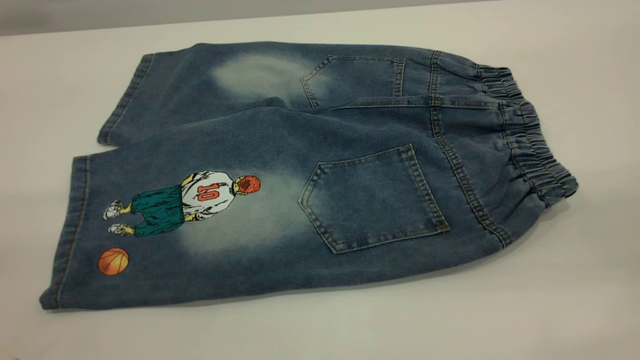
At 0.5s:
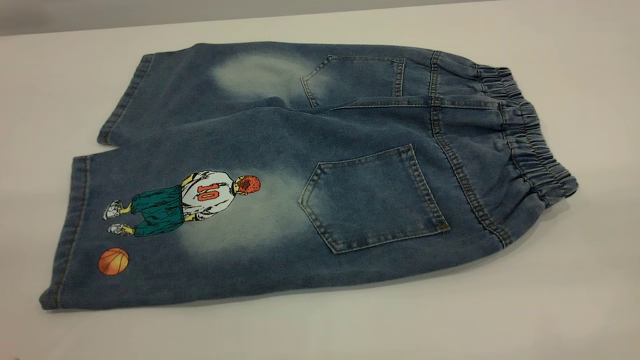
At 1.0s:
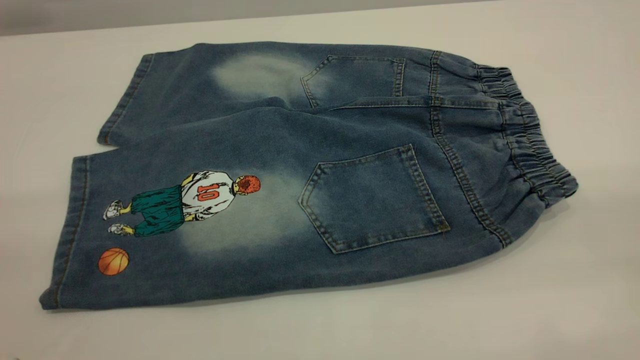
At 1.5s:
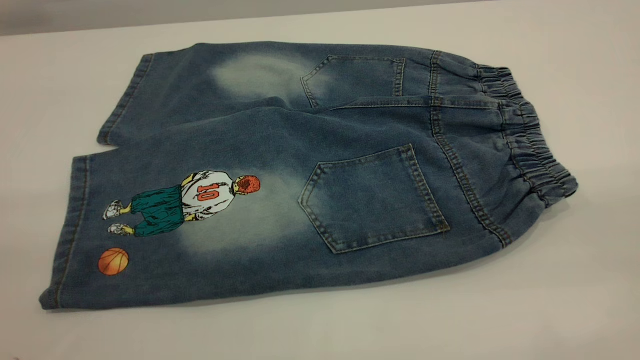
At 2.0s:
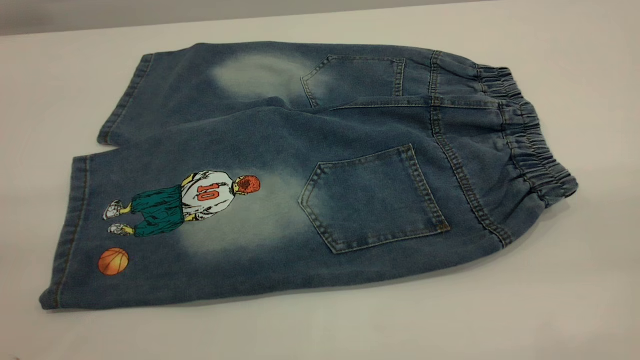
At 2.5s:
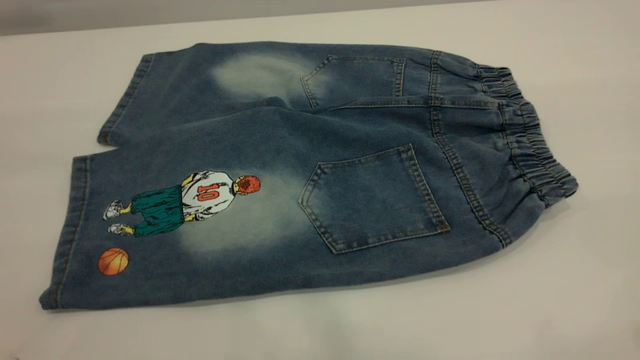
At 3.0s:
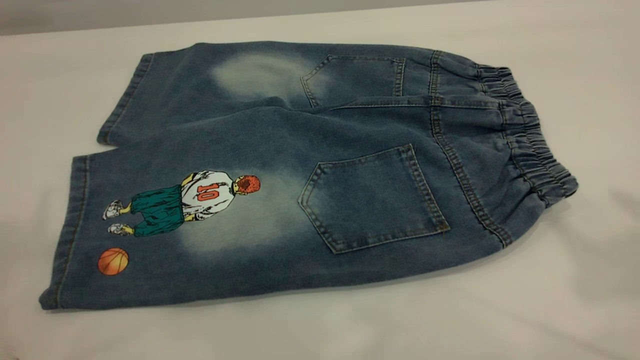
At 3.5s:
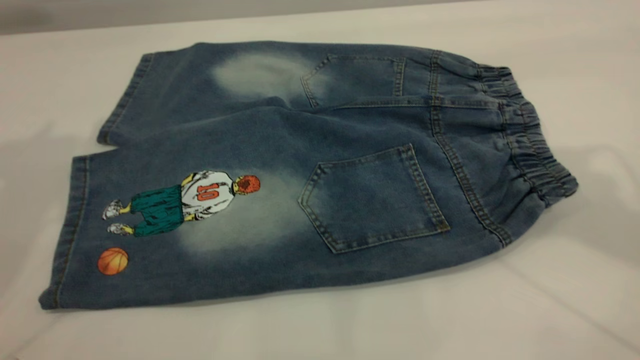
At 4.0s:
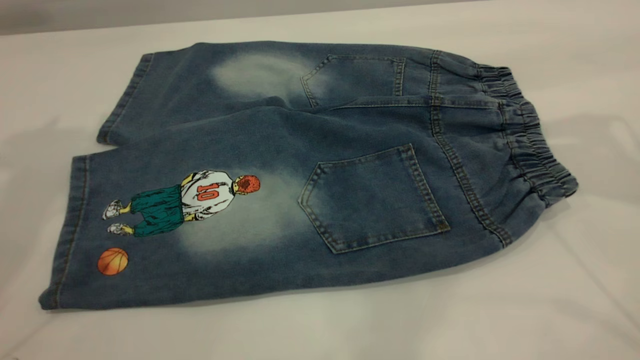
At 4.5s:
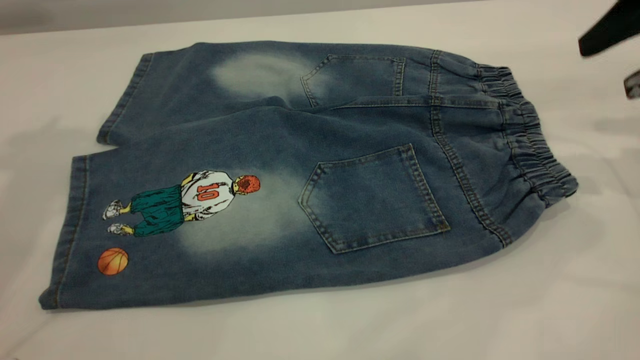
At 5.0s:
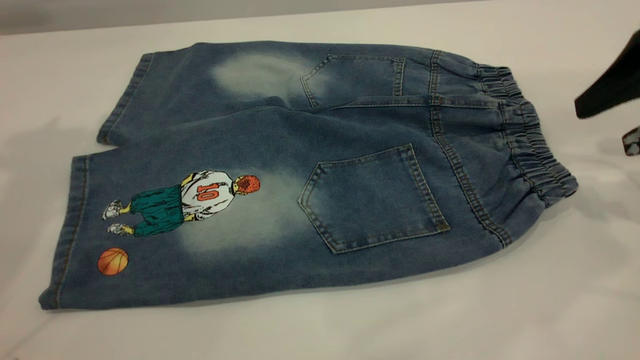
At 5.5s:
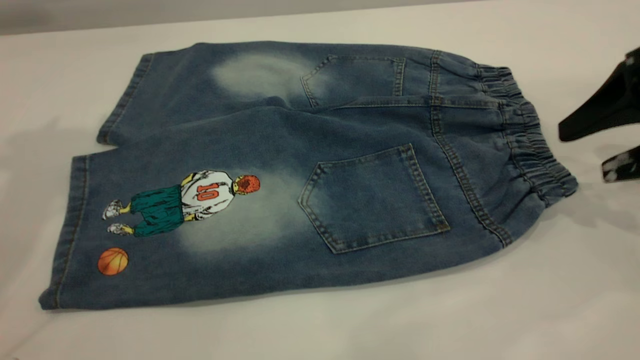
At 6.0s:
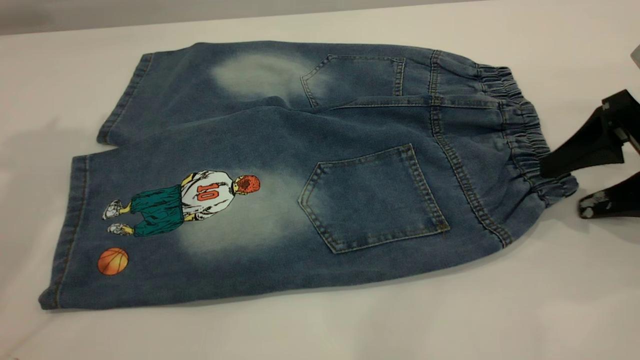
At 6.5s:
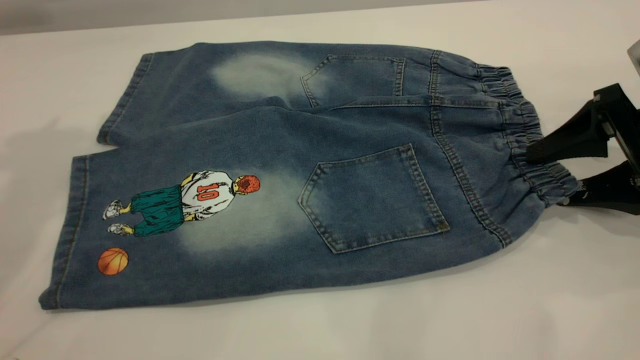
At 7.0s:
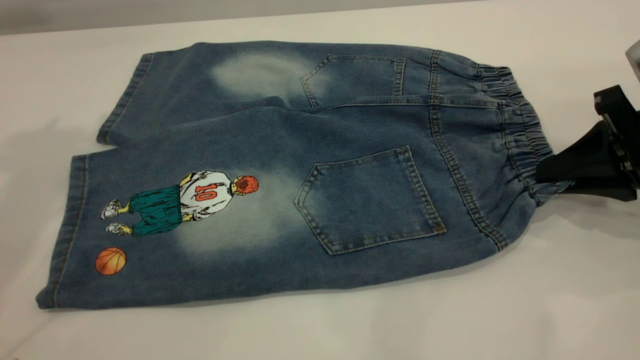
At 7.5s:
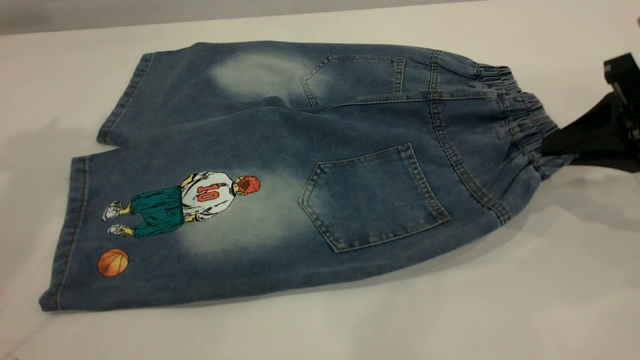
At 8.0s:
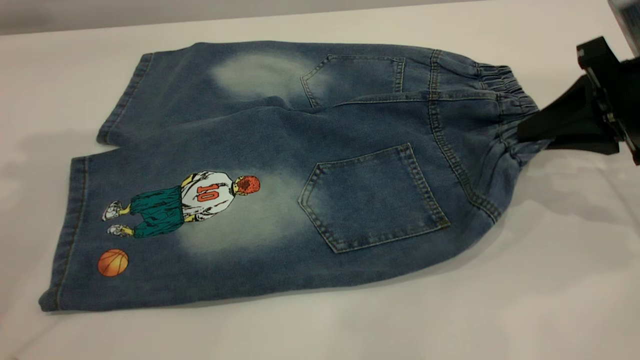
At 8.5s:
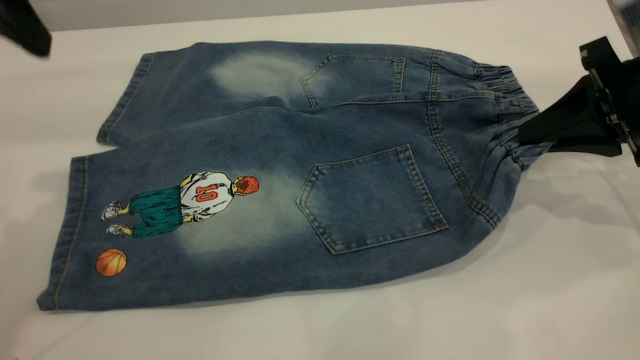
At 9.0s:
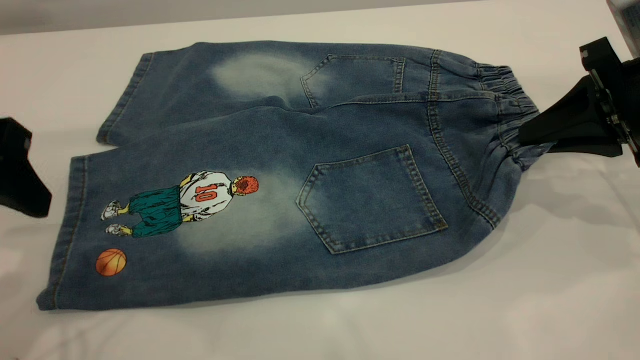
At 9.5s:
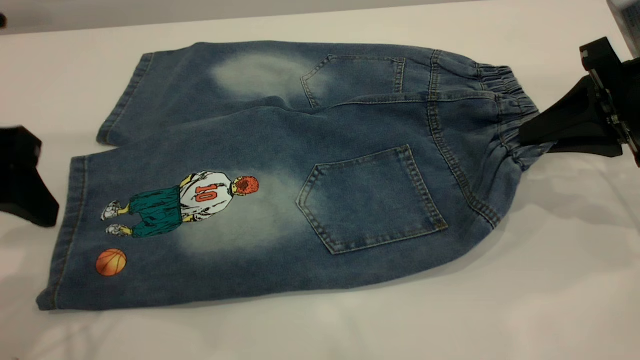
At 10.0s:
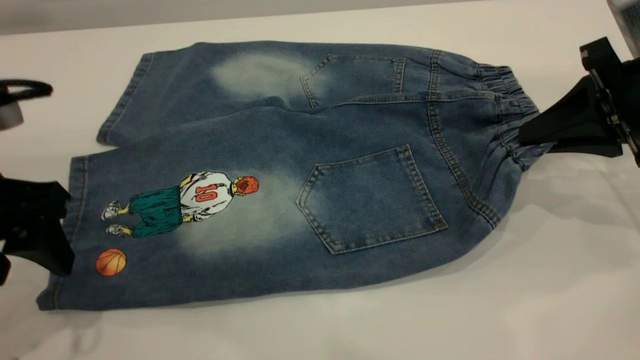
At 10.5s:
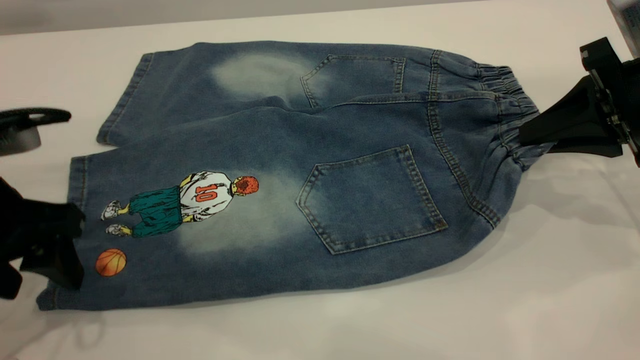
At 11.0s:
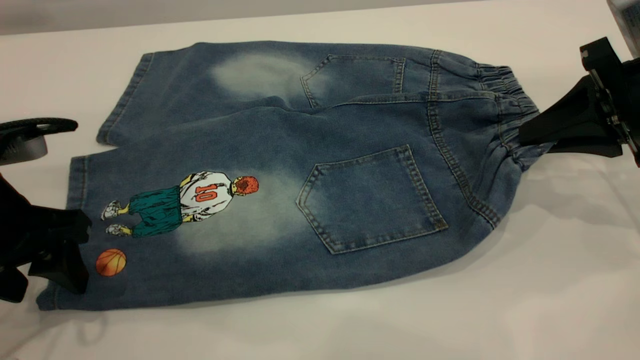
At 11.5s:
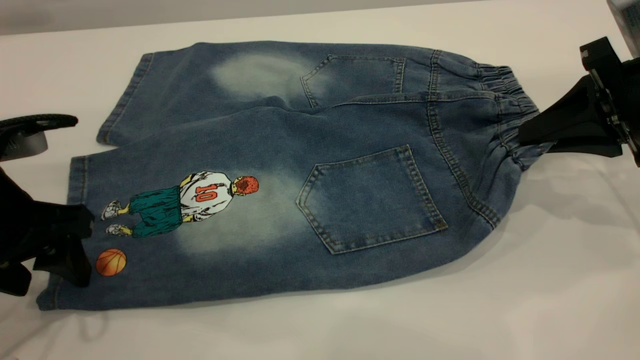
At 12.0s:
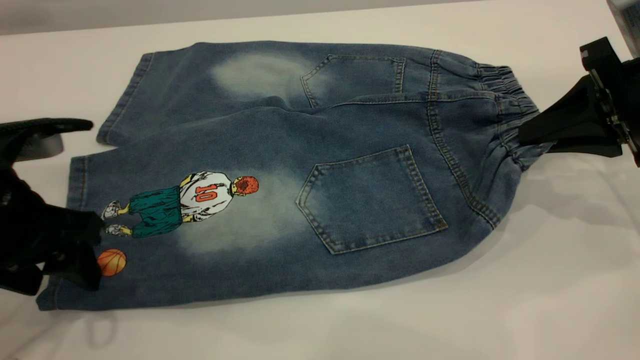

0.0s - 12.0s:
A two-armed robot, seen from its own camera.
0.0s - 2.0s: The two grippers keep their place.
4.0s - 6.0s: The right gripper is displaced downward by roughly 20 cm.
6.0s - 8.0s: The right gripper closes.
8.0s - 10.0s: The left gripper goes approximately 25 cm downward and backward.
10.0s - 12.0s: There are only small adjustments of the grippers.

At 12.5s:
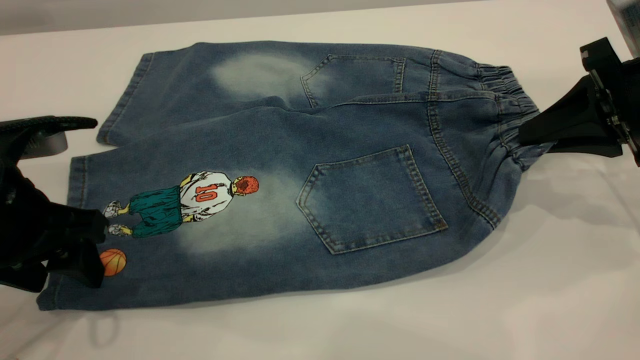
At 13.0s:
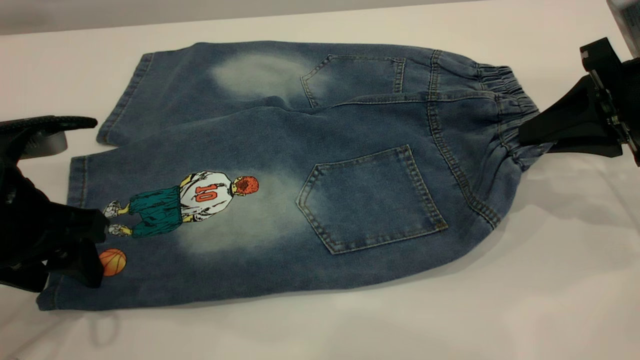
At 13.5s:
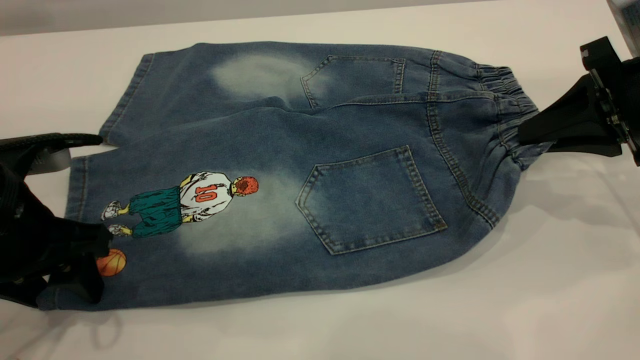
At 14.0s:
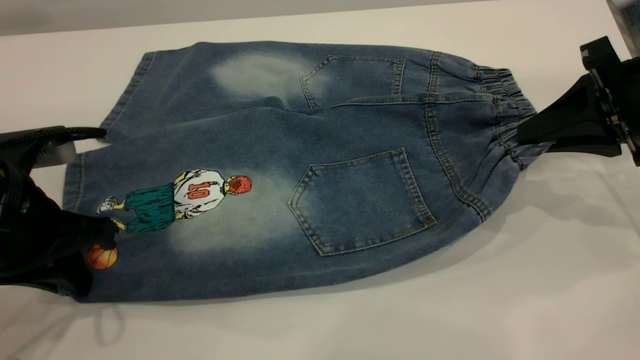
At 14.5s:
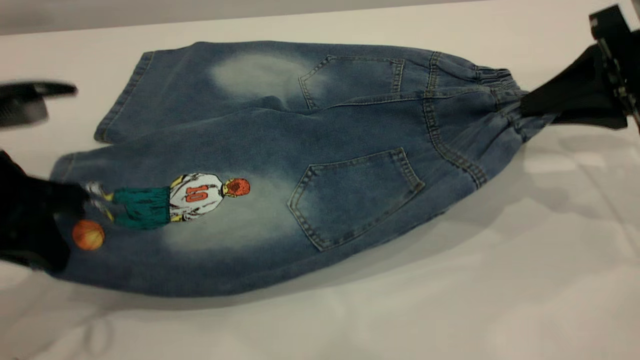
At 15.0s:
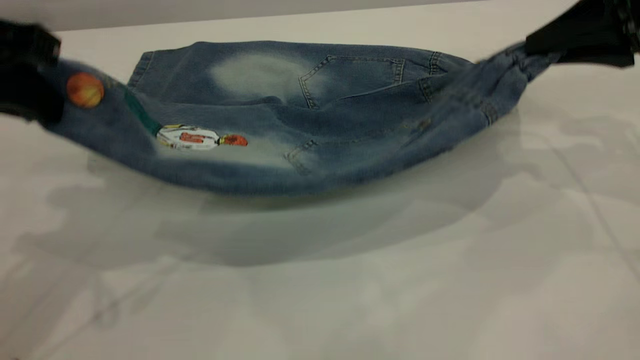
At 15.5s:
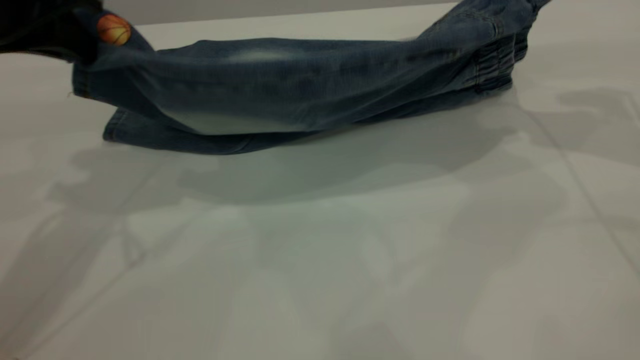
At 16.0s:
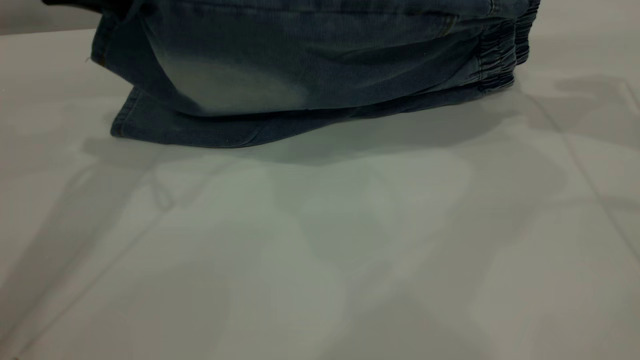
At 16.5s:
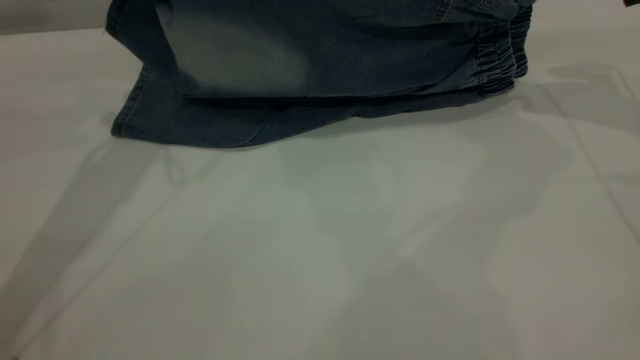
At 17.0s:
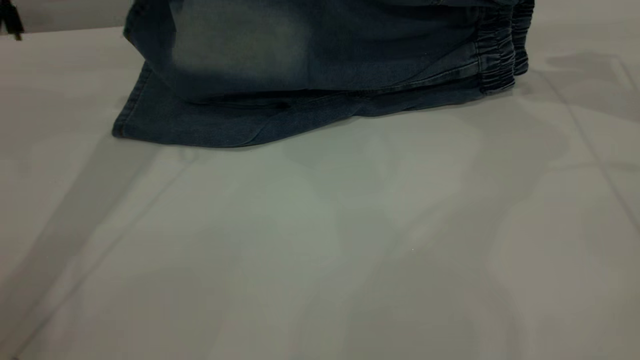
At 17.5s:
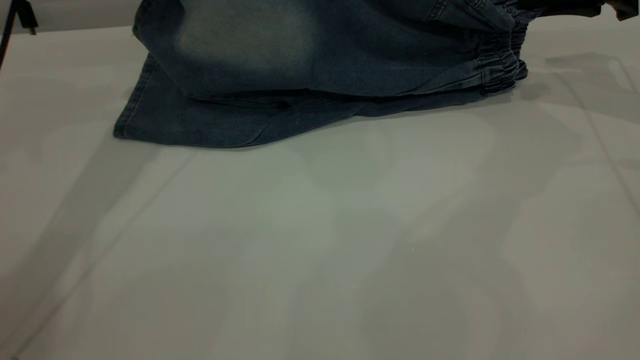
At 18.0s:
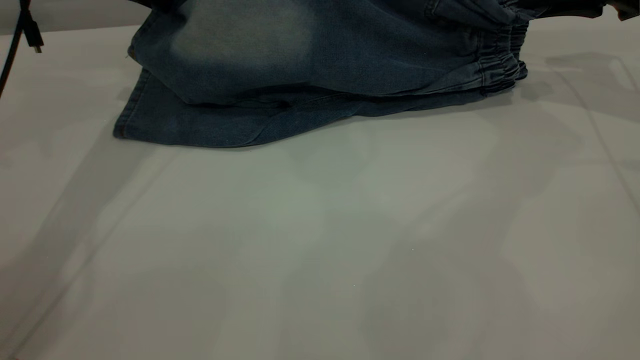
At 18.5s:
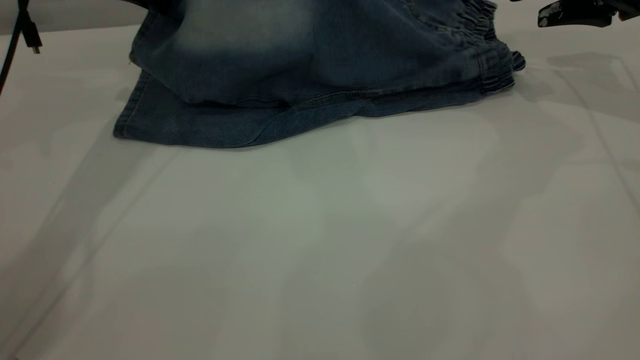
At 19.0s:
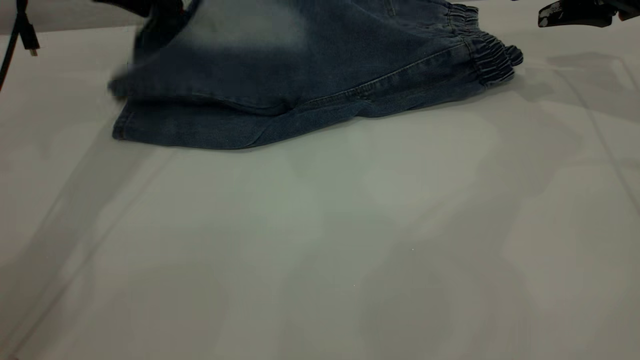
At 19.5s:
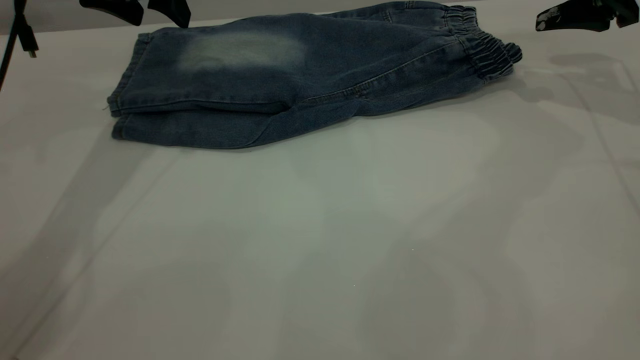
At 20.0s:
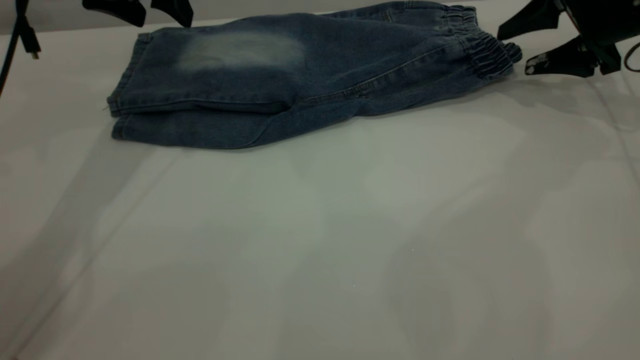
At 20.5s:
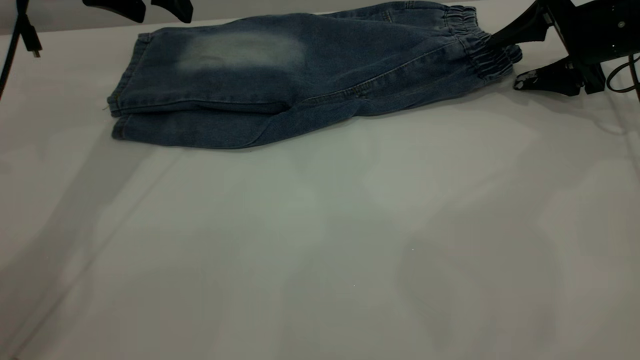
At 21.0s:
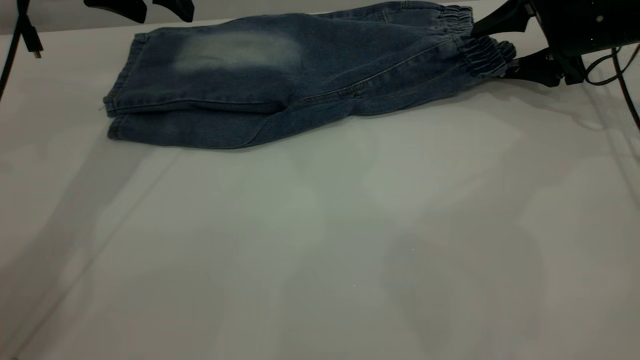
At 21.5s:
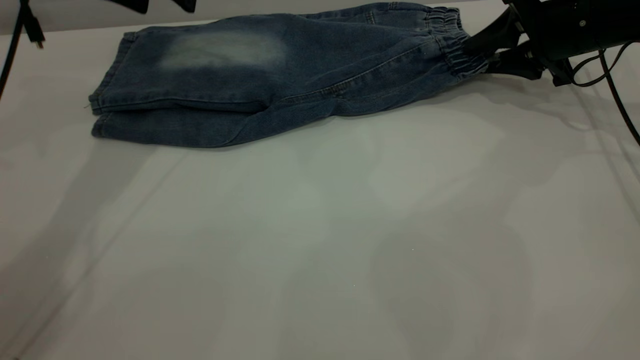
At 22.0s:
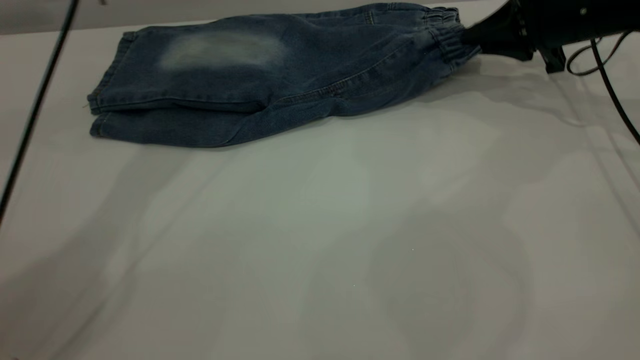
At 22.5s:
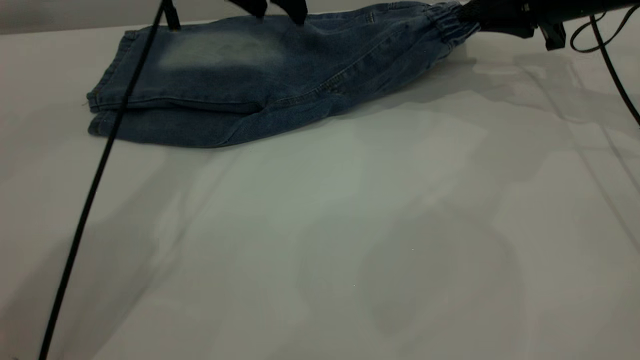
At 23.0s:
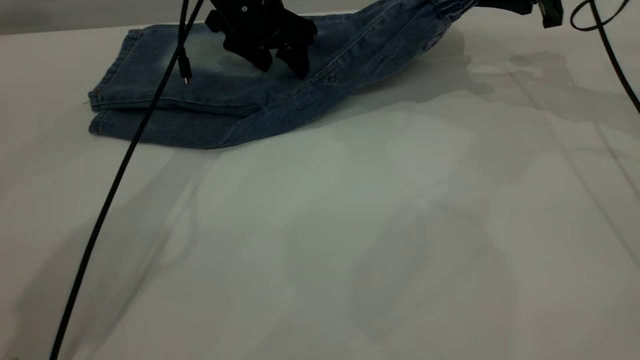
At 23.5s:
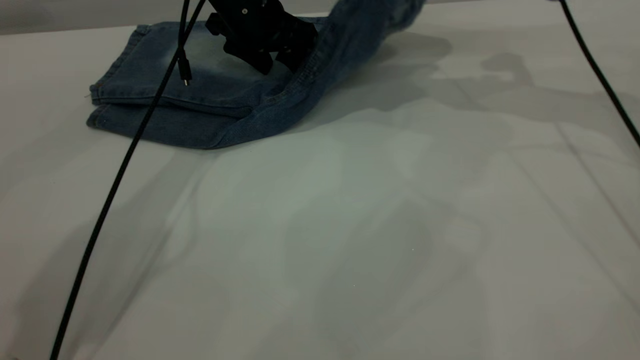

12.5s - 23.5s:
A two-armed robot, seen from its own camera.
Step, 12.5s - 19.0s: Fold the bottom of the pants upward.
12.5s - 14.5s: The left gripper closes up.
14.5s - 16.0s: The left gripper heads forward and upward, covering approximately 15 cm; the right gripper moves forward and upward, some 10 cm.
16.0s - 18.0s: The left gripper shifts about 10 cm forward; the right gripper shifts by about 5 cm.
18.0s - 20.0s: The left gripper opens, while the right gripper opens up.
20.0s - 21.5s: The right gripper closes.
21.5s - 23.5s: The right gripper goes approximately 10 cm upward and to the left, while the left gripper goes some 15 cm to the right and downward.
